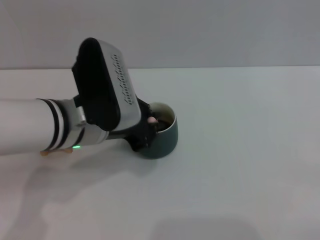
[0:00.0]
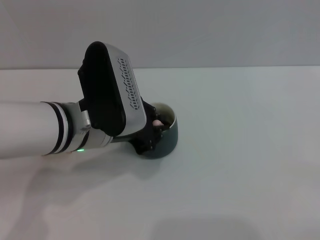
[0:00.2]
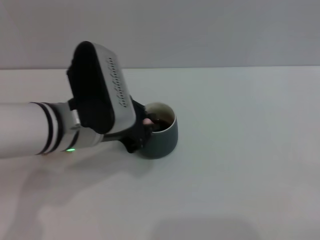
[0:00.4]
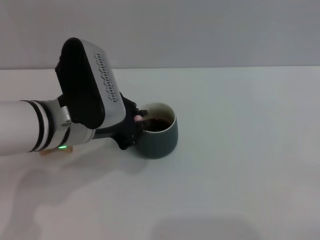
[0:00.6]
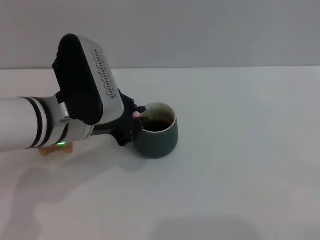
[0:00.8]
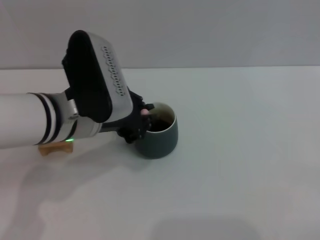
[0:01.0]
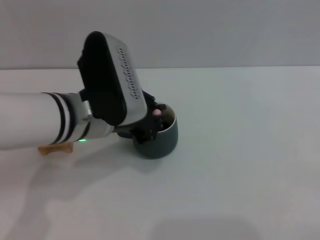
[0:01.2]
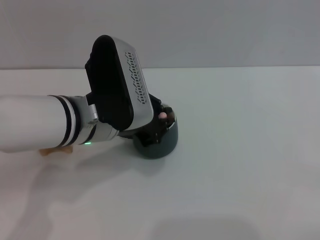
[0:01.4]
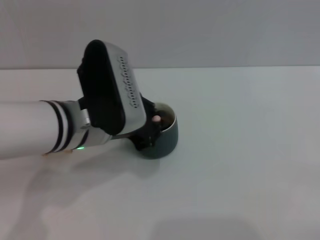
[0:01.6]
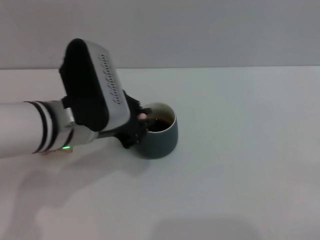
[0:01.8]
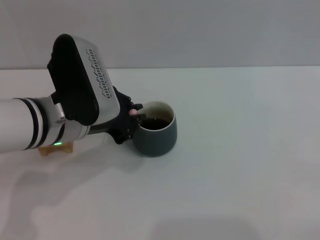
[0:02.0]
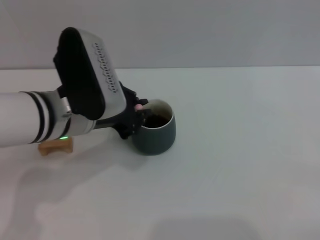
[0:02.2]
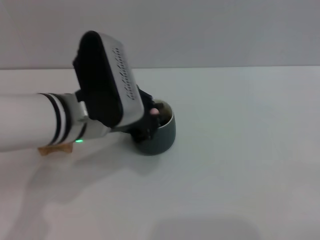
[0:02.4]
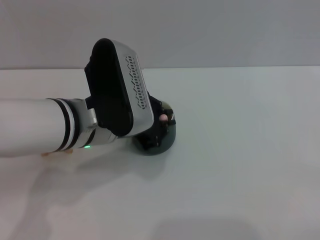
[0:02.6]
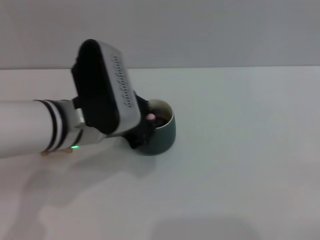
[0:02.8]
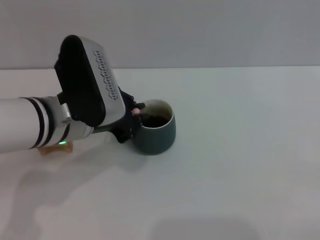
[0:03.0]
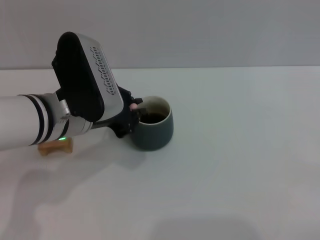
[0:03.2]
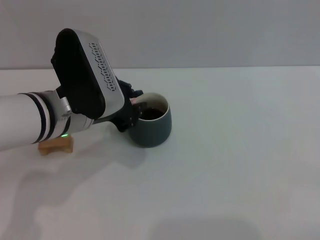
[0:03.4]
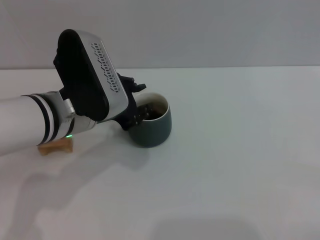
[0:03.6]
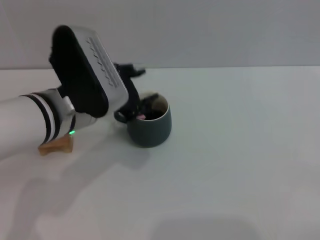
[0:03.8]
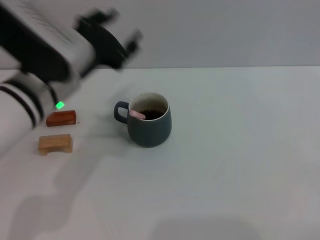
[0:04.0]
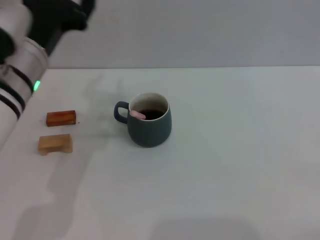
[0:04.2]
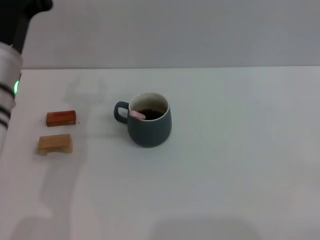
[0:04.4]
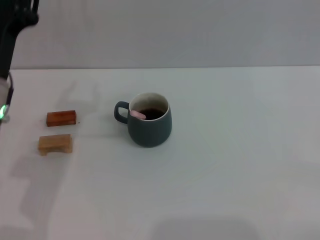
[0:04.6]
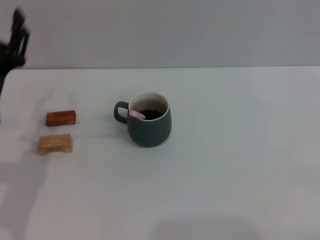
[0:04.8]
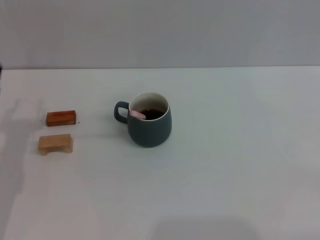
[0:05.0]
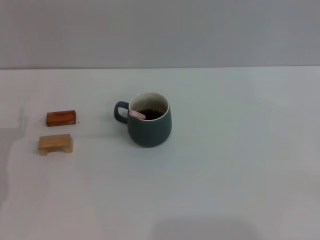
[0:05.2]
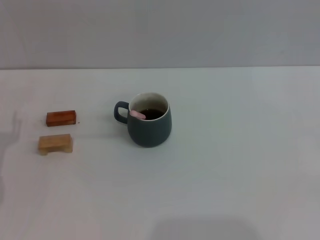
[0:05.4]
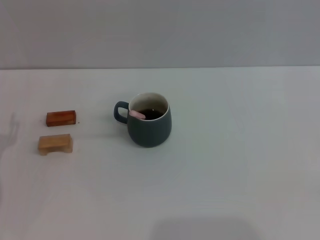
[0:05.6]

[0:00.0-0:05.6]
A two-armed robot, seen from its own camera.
Task of the whole recording: Move the grey cup to the center, lift the pink spoon, stir it three times in the cup, and put the spoon into the cup.
Step, 0:00.0 to 0:03.8: Stir the coffee in the cup with the left gripper.
0:00.0 to 0:02.8: There are only small adjustments of the grippers.
0:02.8 to 0:04.2: The left gripper moves roughly 5 cm, and opens up.
0:04.2 to 0:05.6: The left gripper moves downward, to the left and backward, approximately 20 cm.
